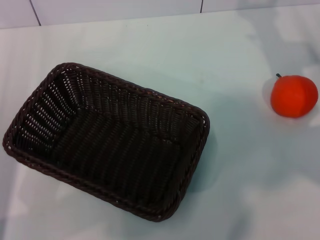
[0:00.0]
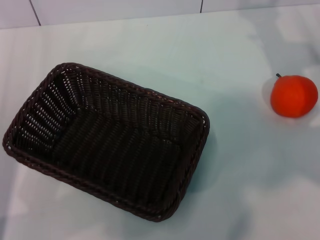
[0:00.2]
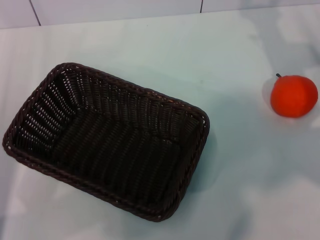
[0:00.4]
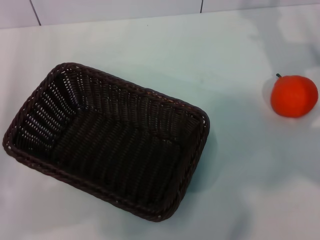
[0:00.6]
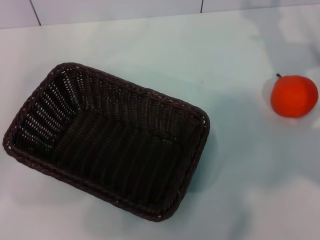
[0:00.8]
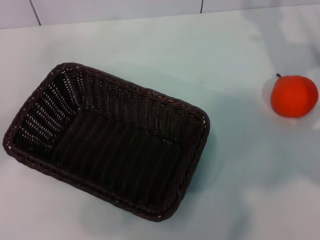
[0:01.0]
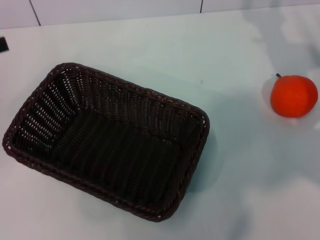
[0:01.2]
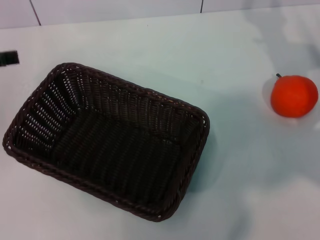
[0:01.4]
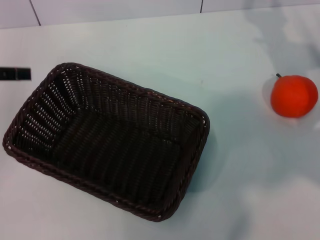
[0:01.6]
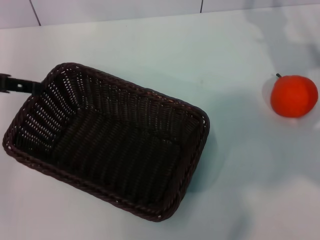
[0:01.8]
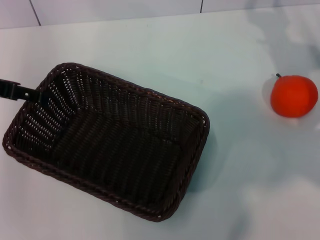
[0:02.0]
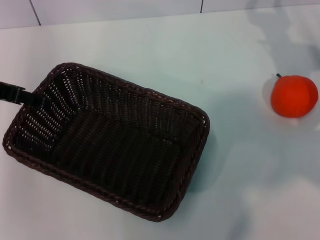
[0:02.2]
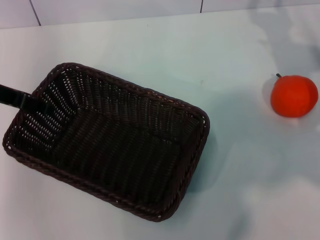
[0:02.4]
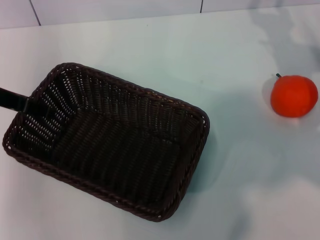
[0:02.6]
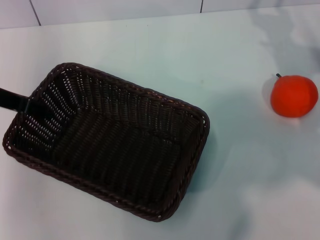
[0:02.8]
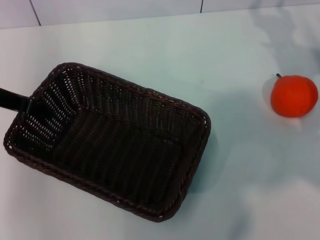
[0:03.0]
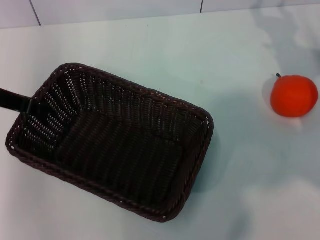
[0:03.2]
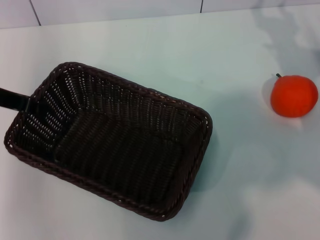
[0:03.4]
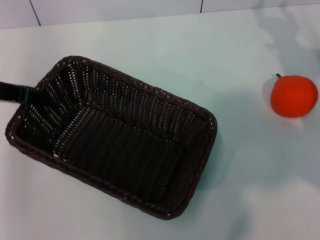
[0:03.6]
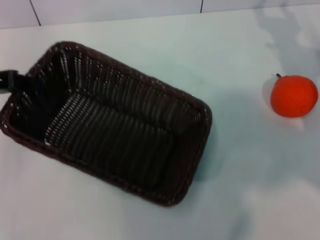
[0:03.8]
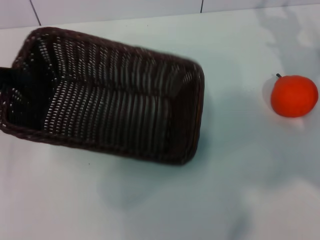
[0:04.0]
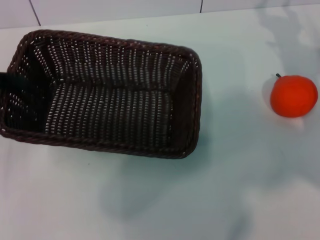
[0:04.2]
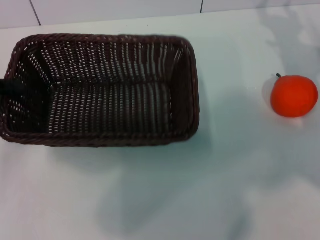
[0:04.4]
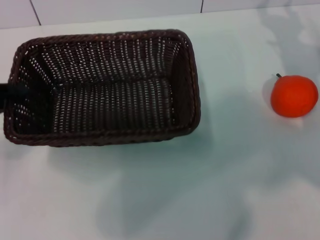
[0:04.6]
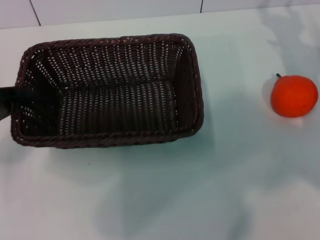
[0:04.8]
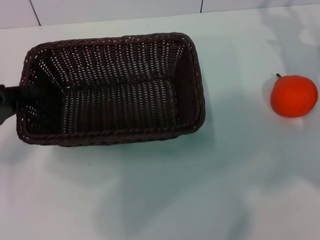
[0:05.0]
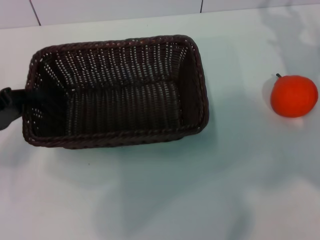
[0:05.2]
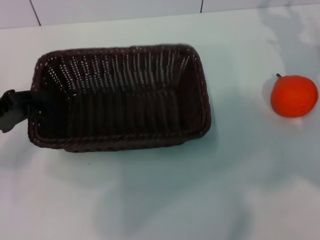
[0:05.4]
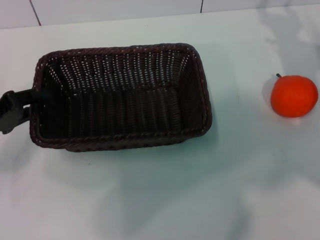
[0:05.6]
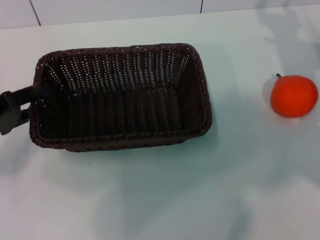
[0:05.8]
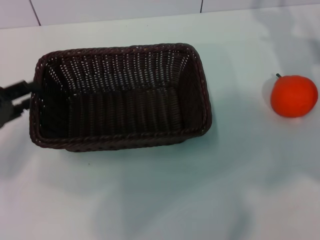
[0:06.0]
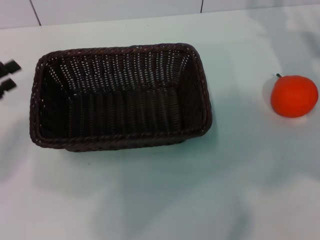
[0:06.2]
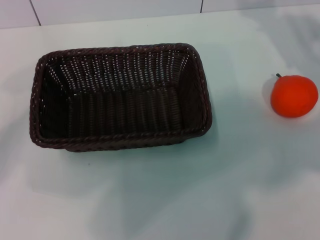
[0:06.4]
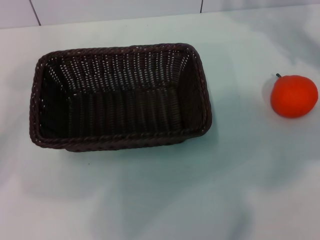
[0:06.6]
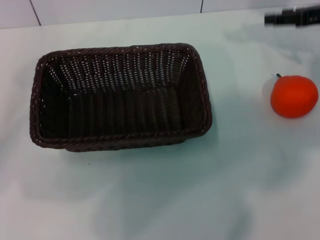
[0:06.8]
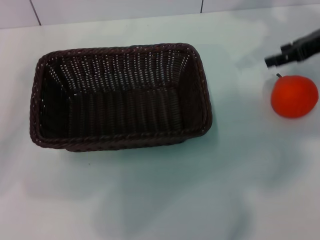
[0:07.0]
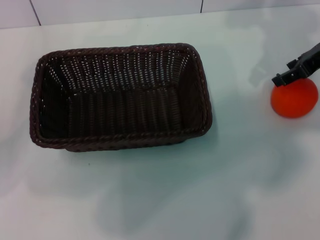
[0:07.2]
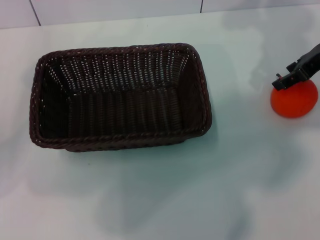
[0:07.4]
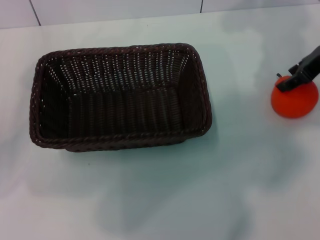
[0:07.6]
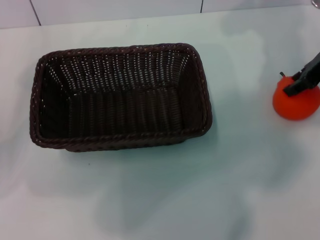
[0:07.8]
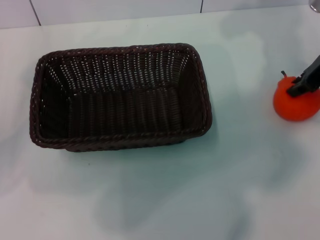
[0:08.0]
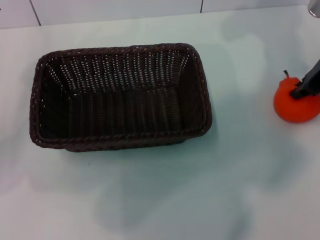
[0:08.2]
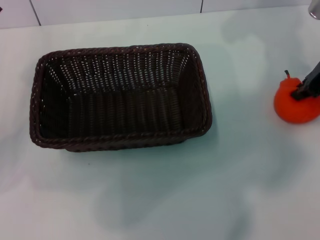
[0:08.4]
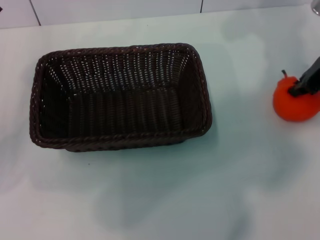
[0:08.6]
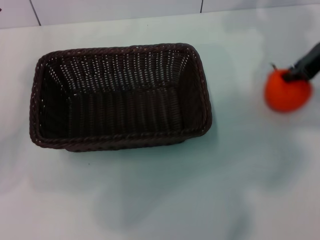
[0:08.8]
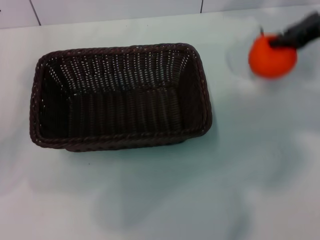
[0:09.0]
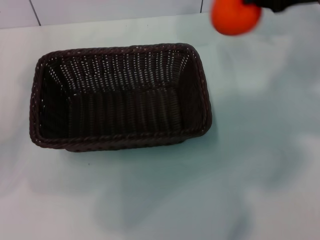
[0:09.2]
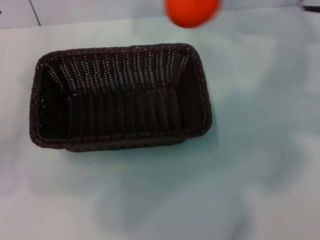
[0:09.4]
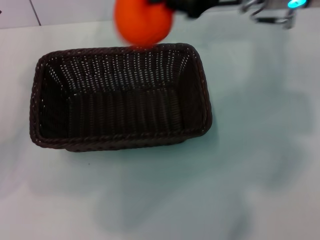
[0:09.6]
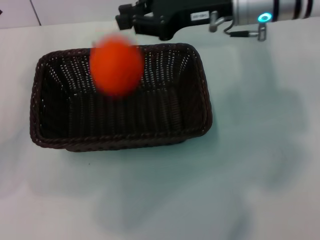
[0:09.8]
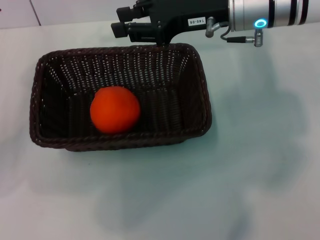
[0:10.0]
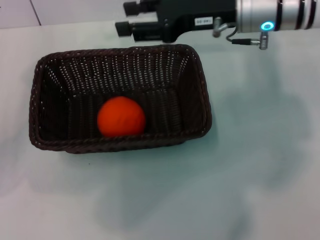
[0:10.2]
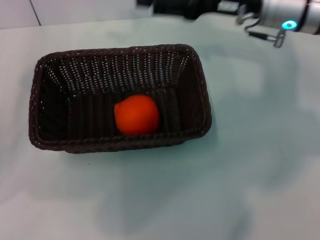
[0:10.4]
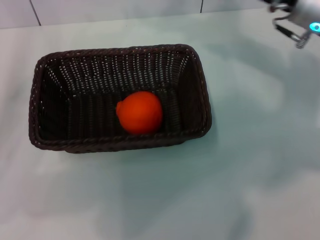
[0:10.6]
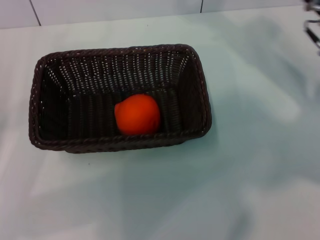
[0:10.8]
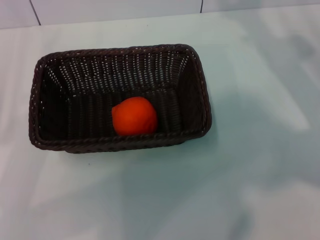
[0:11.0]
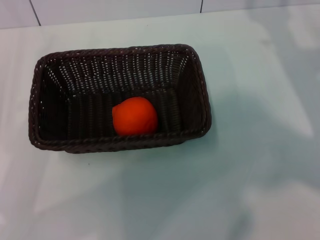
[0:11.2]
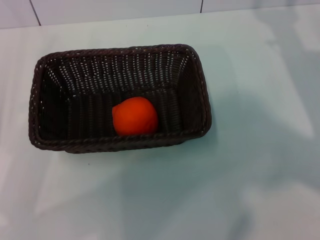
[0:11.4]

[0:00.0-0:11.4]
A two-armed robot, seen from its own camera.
Task of the whole recording: the left gripper pick up the black basket and place it horizontally in the middle of the table, the right gripper pick up the orange and place it into the black basket.
Step, 0:00.0 to 0:03.6: Pick up the dark basket with the left gripper.
Step, 0:03.8 to 0:05.6: Place the dark basket in the center of view with the left gripper.
Step, 0:05.8 to 0:08.8: Pick up the orange with the right gripper.
Step, 0:09.0 to 0:09.8: Place the orange into the dark basket with the right gripper.
0:00.0 to 0:01.4: The left gripper shifts about 15 cm upward and forward.
0:01.4 to 0:02.8: The left gripper travels to the right by some 10 cm.
0:02.8 to 0:04.2: The left gripper travels to the left and backward by some 10 cm, and closes.
0:04.2 to 0:05.6: The left gripper is displaced downward by approximately 10 cm.
0:05.6 to 0:07.2: The right gripper heads upward, covering approximately 10 cm. The left gripper opens its fingers.
0:07.2 to 0:08.6: The right gripper closes.
0:08.6 to 0:10.0: The right gripper travels to the left by about 15 cm.
0:10.0 to 0:11.4: The left gripper shifts roughly 5 cm backward. Meanwhile the right gripper goes about 20 cm to the right and downward, and opens.
